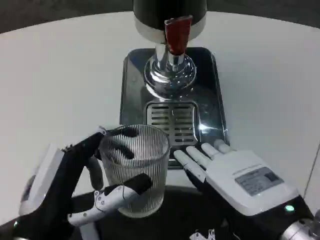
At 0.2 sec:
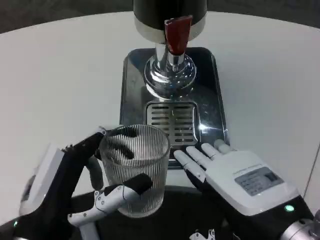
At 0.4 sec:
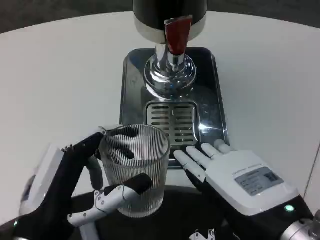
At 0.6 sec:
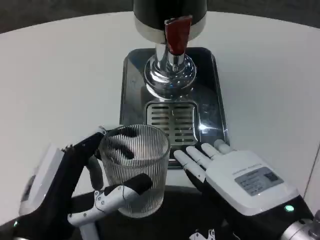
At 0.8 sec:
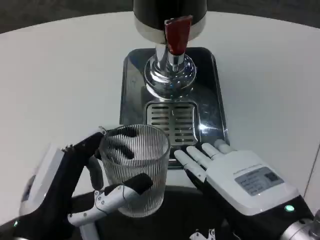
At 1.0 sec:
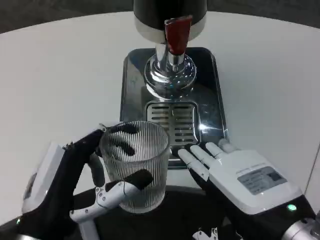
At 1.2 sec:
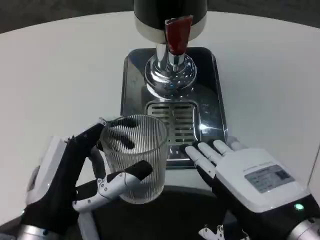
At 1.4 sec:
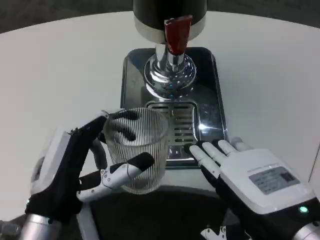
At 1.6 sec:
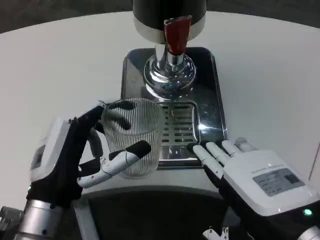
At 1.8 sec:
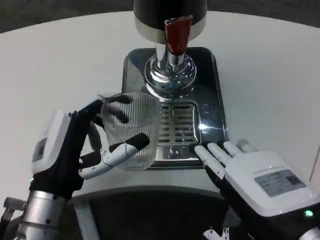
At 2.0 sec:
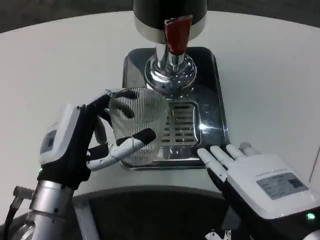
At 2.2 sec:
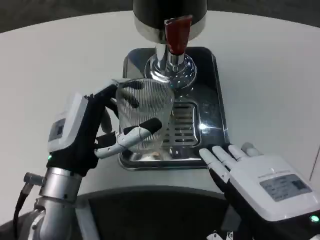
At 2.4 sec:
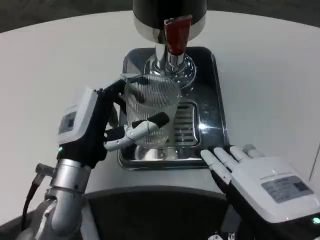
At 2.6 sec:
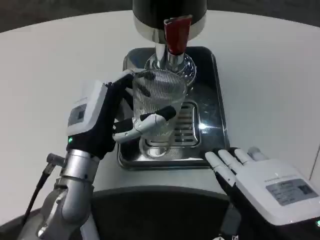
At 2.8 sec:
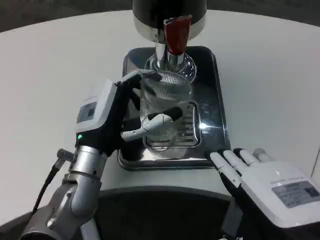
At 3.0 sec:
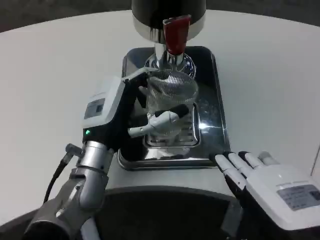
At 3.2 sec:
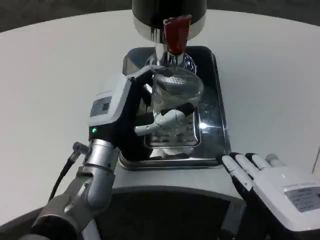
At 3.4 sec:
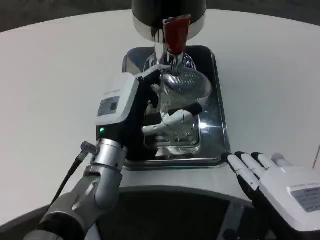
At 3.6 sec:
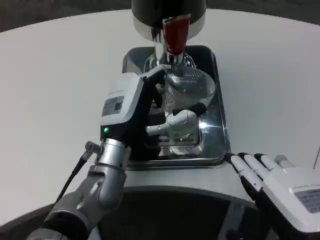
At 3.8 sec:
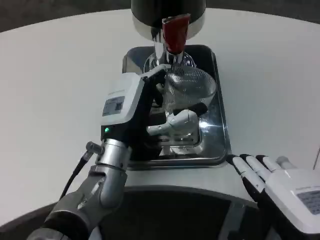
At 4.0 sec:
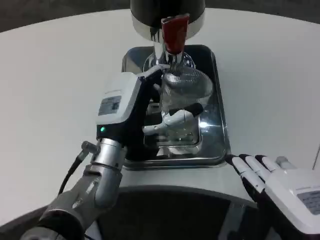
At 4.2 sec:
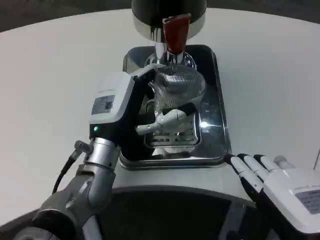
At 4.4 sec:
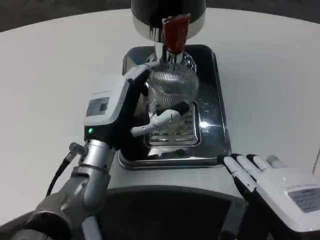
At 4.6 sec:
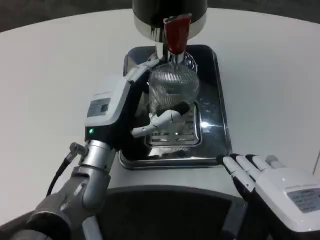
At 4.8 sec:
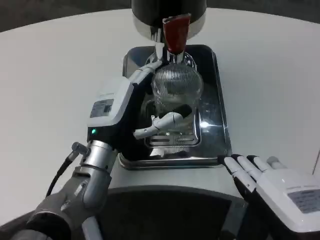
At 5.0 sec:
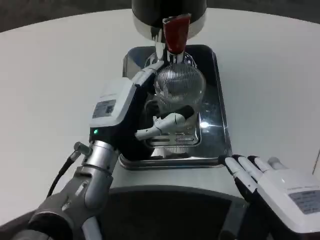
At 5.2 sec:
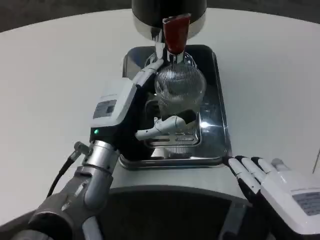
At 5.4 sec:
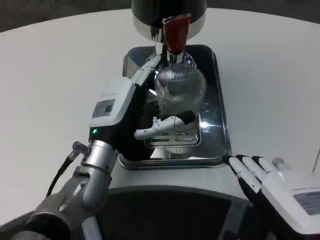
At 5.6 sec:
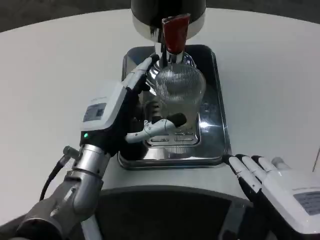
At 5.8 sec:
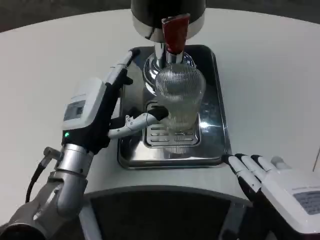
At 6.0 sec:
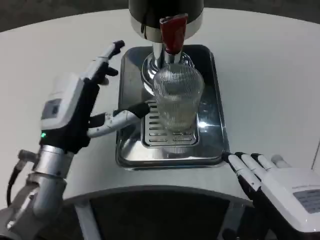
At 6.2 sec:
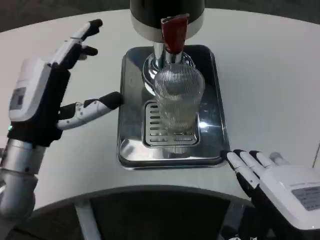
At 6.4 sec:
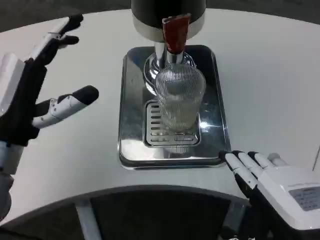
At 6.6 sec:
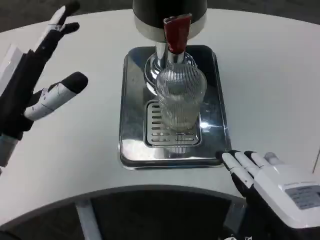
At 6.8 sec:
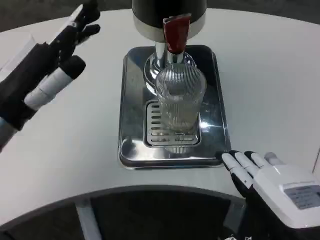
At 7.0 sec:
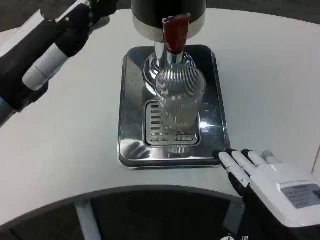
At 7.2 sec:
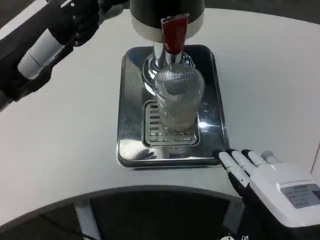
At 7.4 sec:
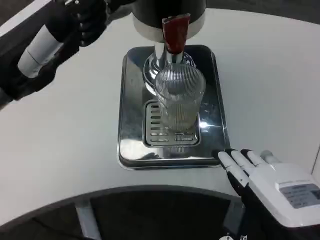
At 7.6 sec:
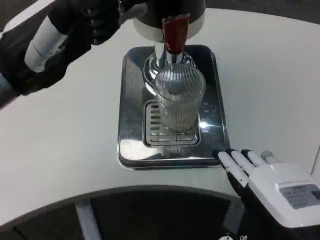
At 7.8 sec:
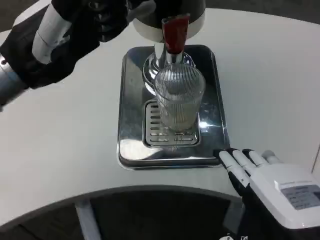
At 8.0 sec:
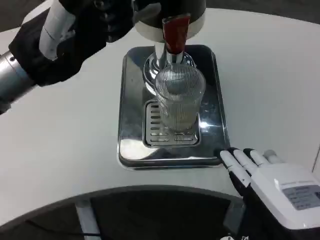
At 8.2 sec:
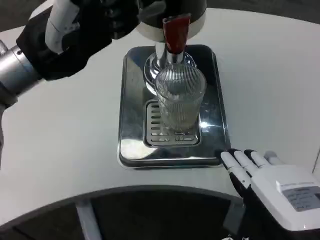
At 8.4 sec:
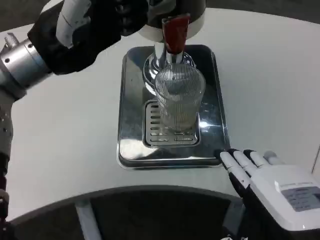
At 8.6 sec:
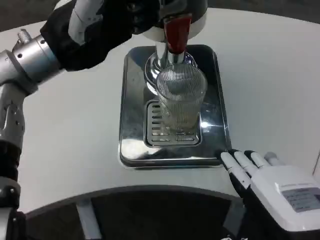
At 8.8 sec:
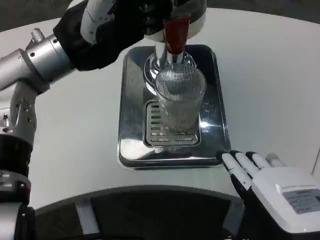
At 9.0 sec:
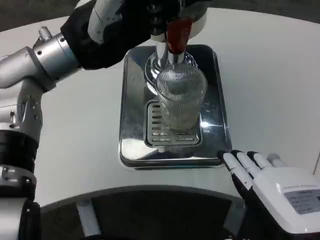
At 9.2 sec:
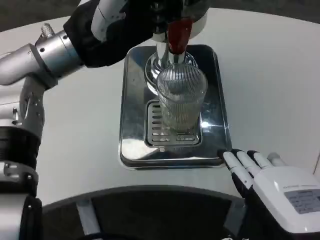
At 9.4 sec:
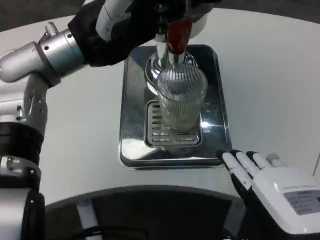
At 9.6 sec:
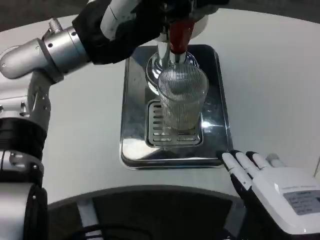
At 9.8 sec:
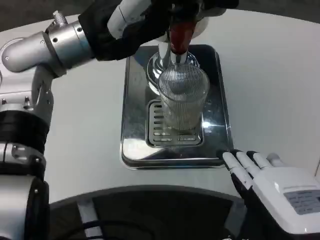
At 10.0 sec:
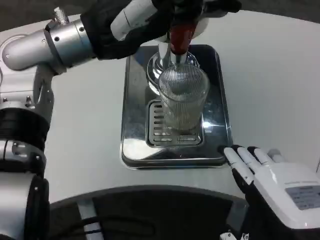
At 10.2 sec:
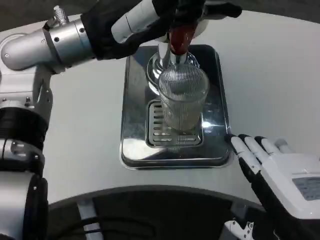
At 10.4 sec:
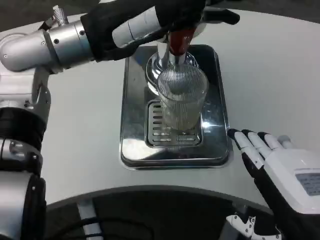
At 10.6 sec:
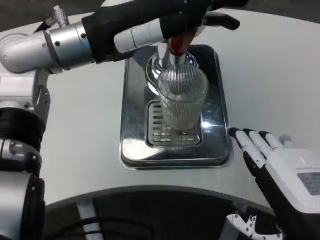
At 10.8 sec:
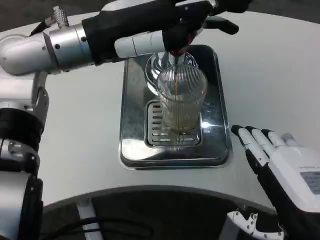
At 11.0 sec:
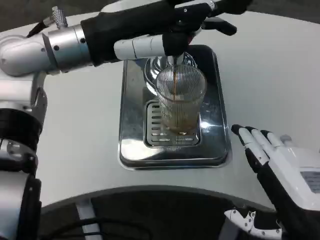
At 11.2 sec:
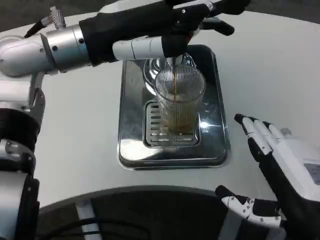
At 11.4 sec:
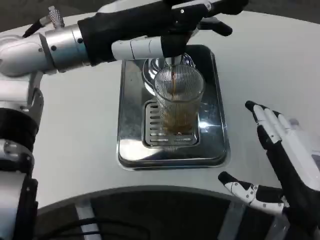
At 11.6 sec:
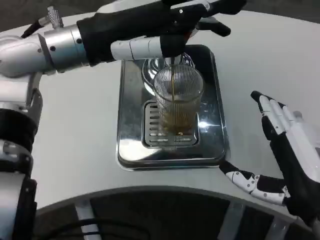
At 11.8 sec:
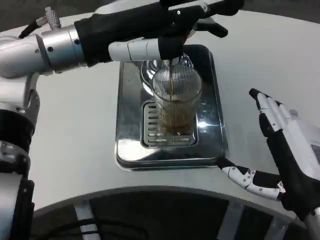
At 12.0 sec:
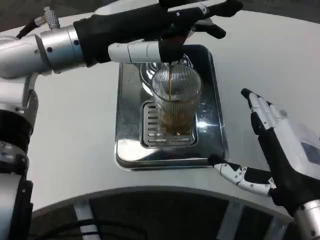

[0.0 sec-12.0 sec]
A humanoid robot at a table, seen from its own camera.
Task of the whole recording: Grasp the cup under the faucet to collect the drink, then remove the cup.
0.0 sec to 1.6 sec: The left hand moves forward, approximately 5 cm.
1.6 sec to 3.0 sec: The left hand is displaced forward by about 10 cm.
3.0 sec to 4.4 sec: The hands move only a little.
4.4 sec to 6.0 sec: The left hand goes about 5 cm to the left.
6.0 sec to 7.6 sec: The left hand goes about 15 cm upward.
7.6 sec to 9.0 sec: The left hand travels forward and to the right by roughly 10 cm.
10.4 sec to 12.0 sec: The right hand is displaced forward by about 5 cm.

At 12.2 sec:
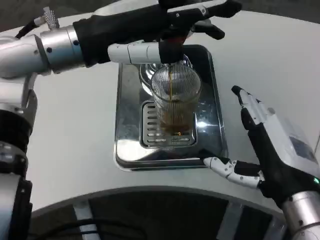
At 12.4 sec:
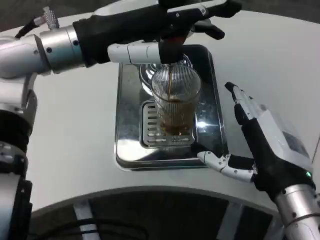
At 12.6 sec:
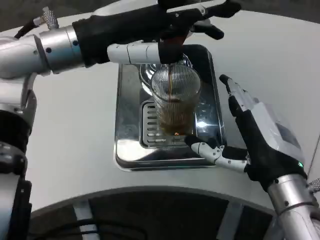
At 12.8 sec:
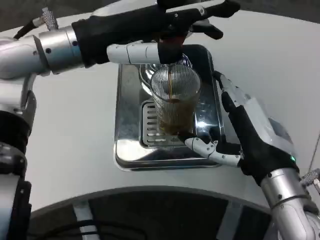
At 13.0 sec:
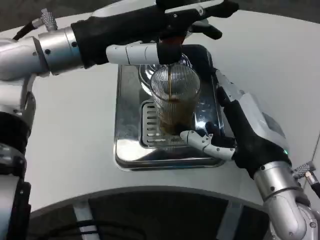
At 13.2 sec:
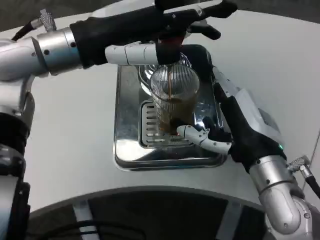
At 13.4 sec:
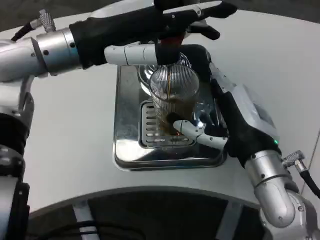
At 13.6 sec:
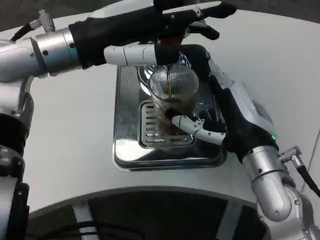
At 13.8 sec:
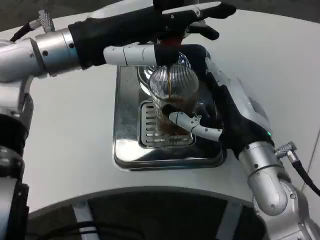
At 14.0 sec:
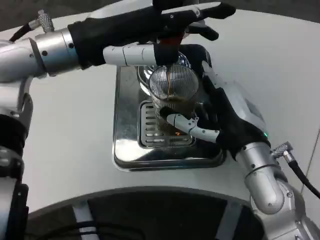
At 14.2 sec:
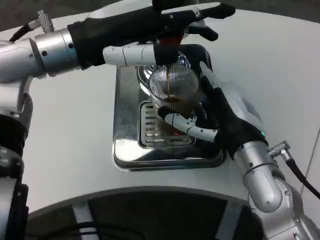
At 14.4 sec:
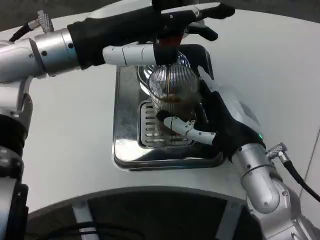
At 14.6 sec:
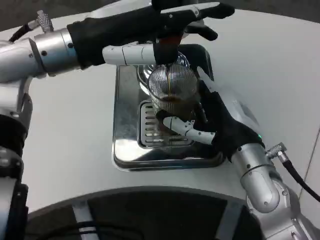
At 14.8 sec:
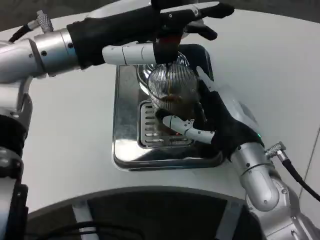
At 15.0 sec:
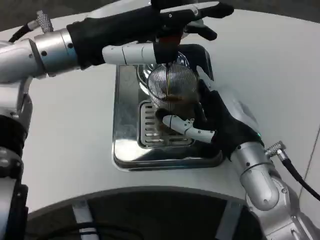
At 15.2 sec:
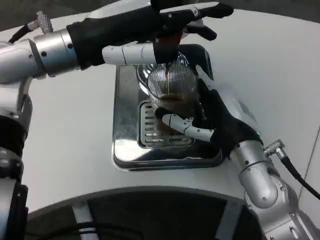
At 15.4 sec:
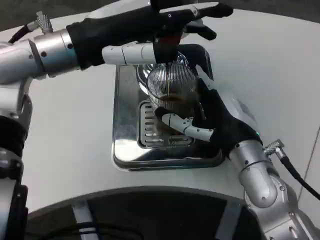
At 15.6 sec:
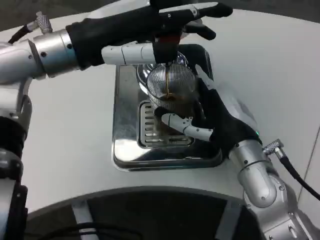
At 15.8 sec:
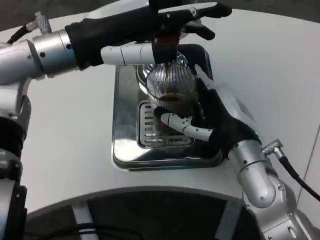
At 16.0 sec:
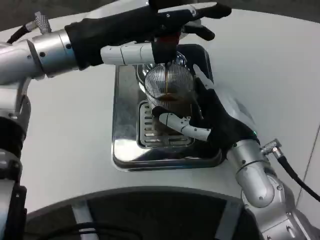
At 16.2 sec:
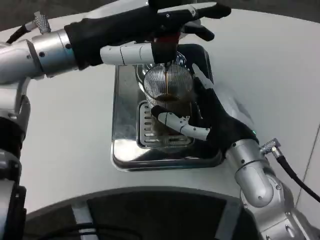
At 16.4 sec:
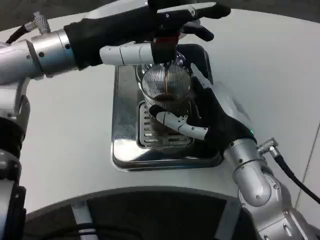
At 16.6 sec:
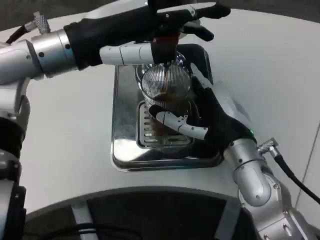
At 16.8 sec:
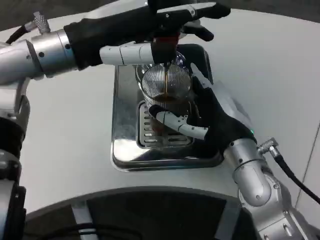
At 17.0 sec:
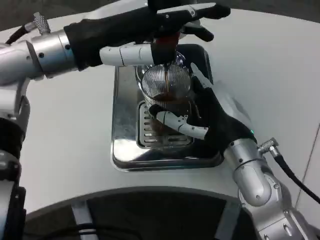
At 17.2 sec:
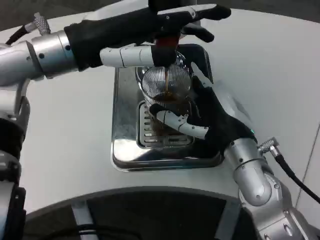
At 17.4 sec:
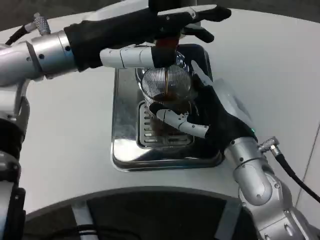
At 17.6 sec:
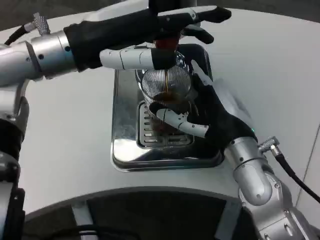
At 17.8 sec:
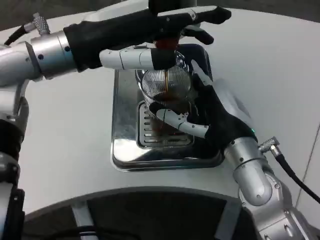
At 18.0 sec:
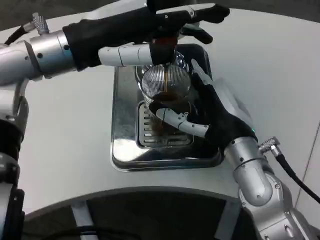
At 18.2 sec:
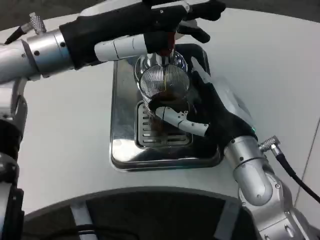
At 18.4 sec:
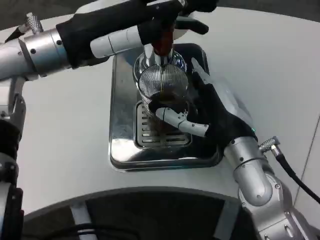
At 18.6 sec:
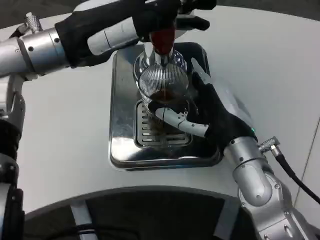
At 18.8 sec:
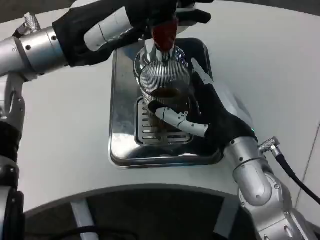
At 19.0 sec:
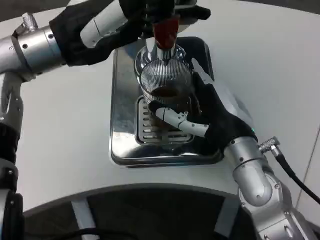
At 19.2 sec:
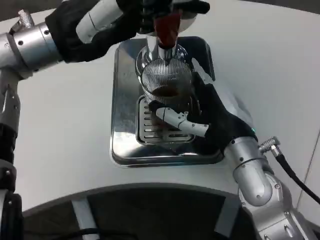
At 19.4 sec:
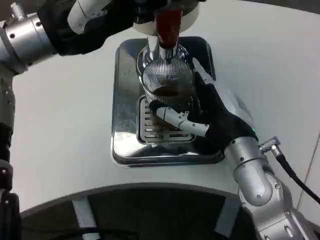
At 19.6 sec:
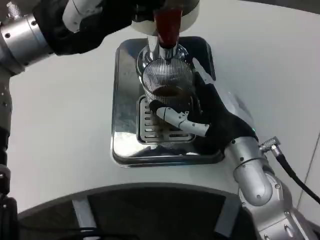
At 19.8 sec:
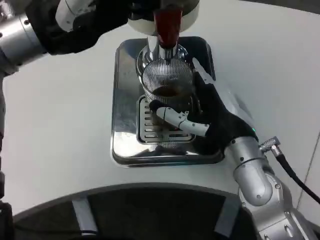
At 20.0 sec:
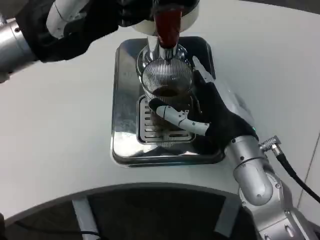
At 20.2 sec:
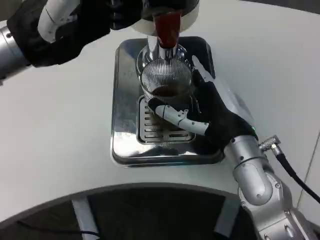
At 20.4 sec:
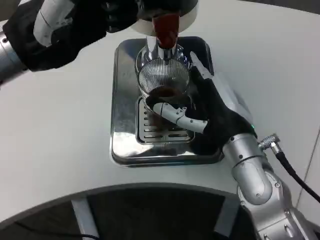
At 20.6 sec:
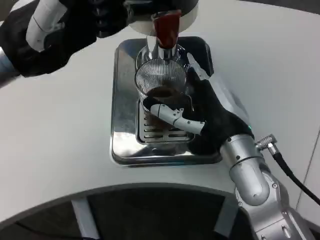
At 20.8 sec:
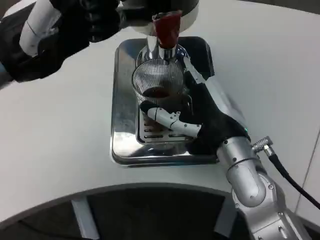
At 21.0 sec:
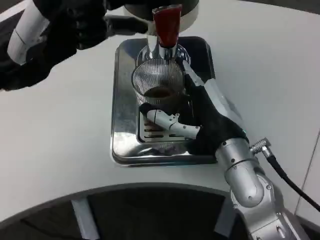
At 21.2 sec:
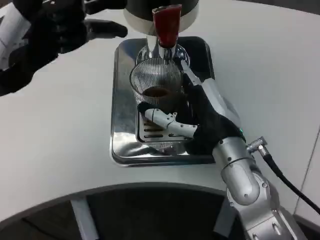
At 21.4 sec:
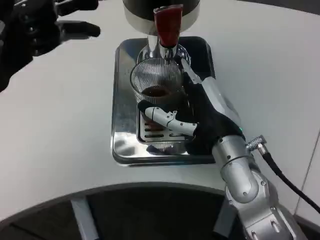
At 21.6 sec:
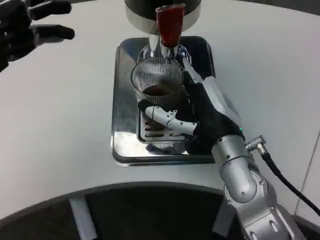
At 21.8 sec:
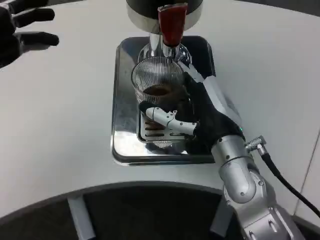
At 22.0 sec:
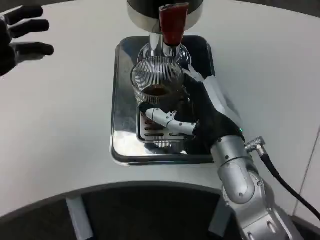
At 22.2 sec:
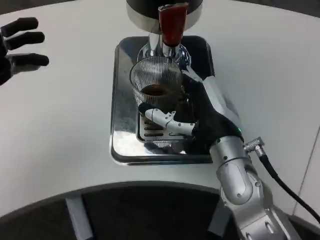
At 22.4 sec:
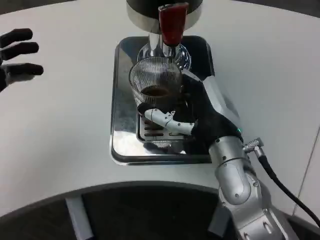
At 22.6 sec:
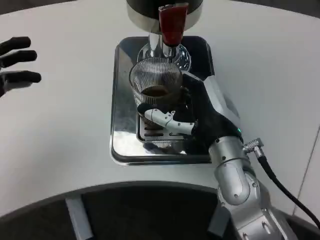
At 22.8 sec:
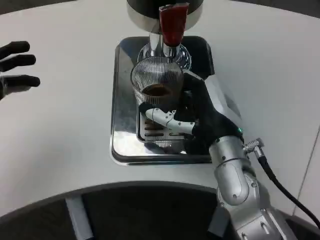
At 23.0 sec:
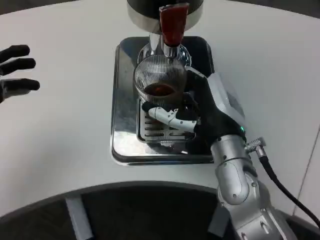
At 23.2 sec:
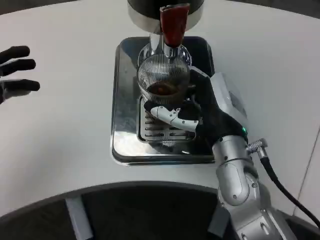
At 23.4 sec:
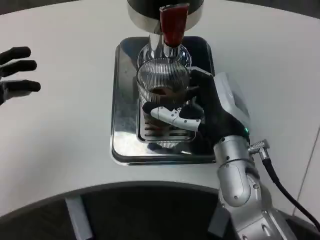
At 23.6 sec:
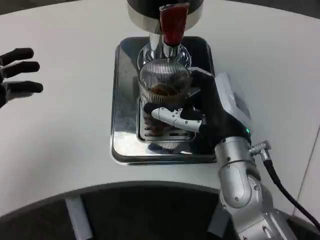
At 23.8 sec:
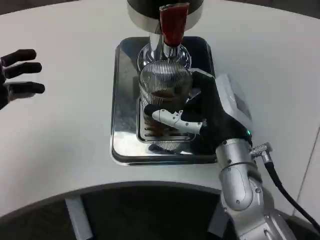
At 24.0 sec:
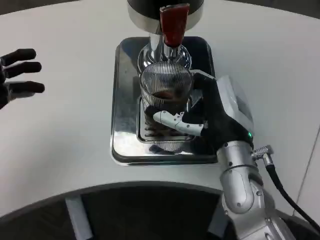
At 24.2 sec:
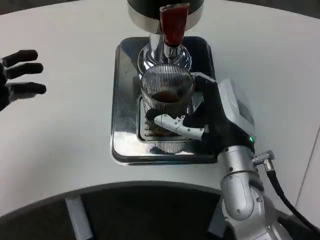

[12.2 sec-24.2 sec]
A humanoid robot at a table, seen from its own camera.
Task of the whole recording: Grasp the cup under the faucet to collect the drink, then remove the cup.
12.2 sec to 13.8 sec: The right hand heads forward, covering roughly 5 cm.
13.8 sec to 15.2 sec: There are only small adjustments of the hands.
15.2 sec to 16.6 sec: Both hands stay put.
16.6 sec to 18.2 sec: The hands make only small movements.
19.8 sec to 21.2 sec: The left hand shifts about 5 cm to the left.
21.2 sec to 22.6 sec: The left hand goes roughly 10 cm downward, to the left and backward.
22.6 sec to 24.2 sec: The hands stay close to where they were, moving slightly.
